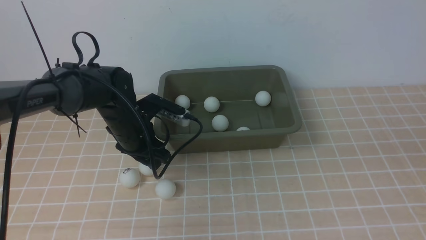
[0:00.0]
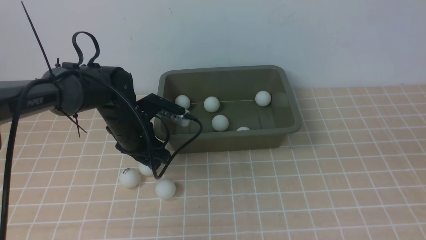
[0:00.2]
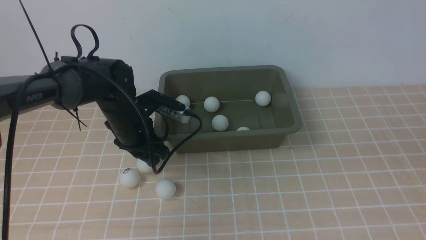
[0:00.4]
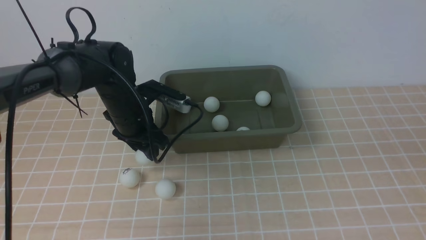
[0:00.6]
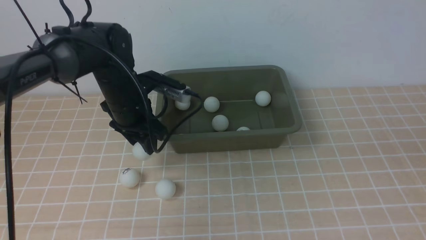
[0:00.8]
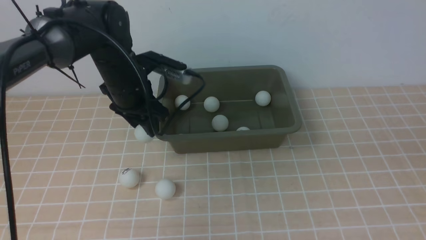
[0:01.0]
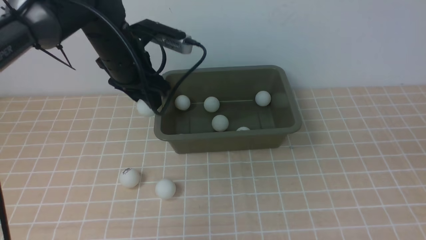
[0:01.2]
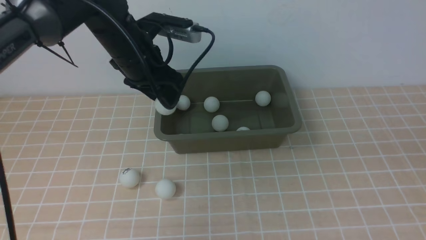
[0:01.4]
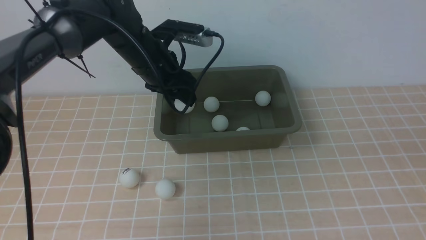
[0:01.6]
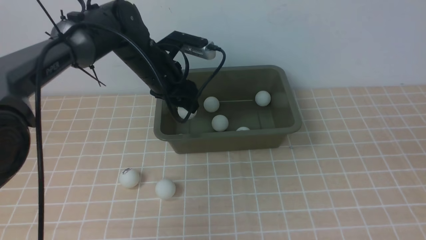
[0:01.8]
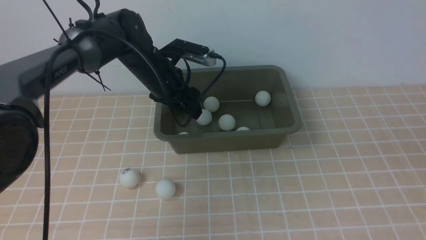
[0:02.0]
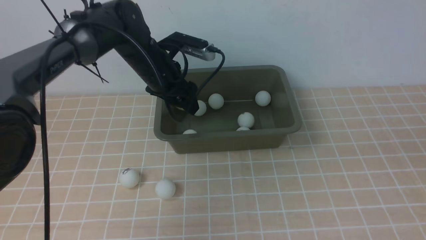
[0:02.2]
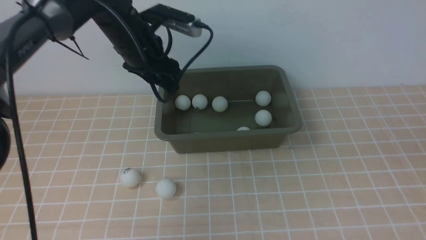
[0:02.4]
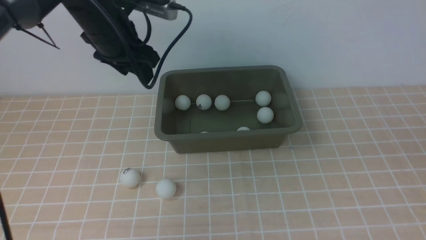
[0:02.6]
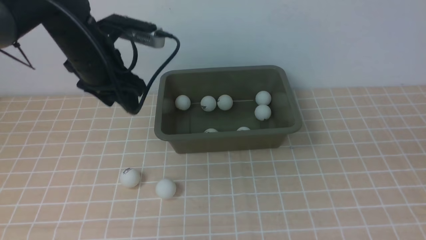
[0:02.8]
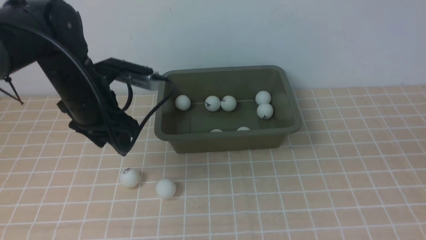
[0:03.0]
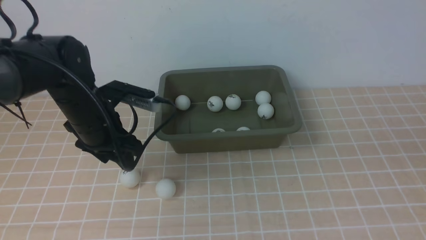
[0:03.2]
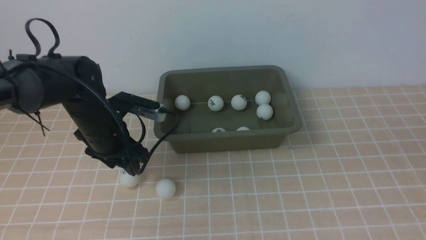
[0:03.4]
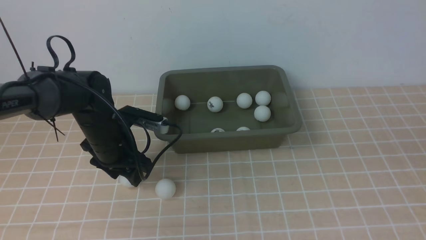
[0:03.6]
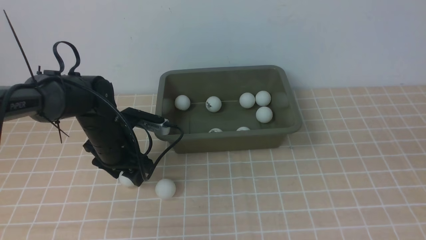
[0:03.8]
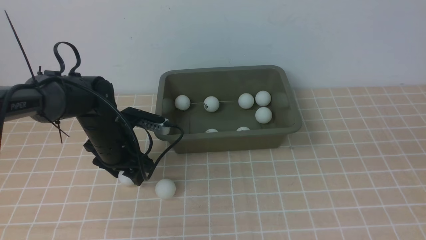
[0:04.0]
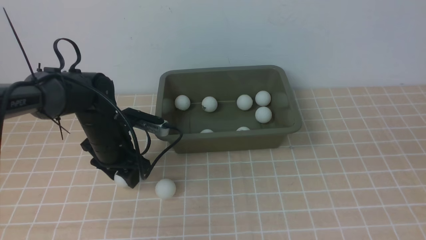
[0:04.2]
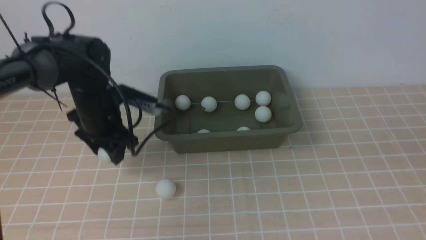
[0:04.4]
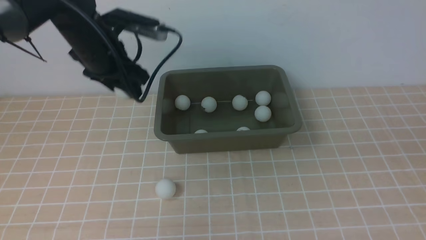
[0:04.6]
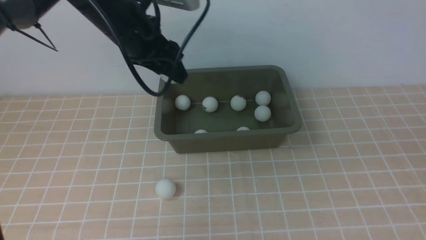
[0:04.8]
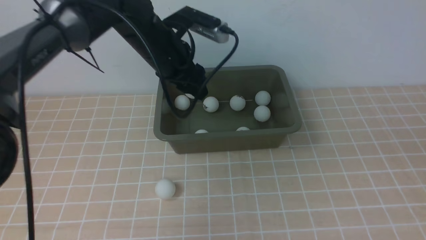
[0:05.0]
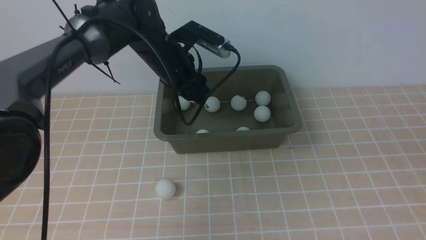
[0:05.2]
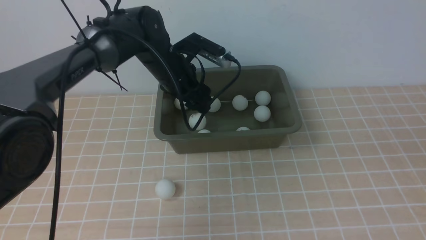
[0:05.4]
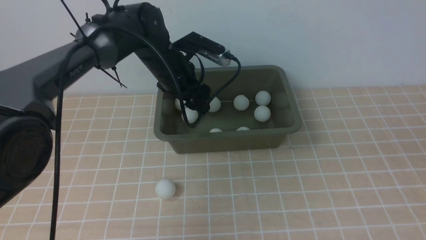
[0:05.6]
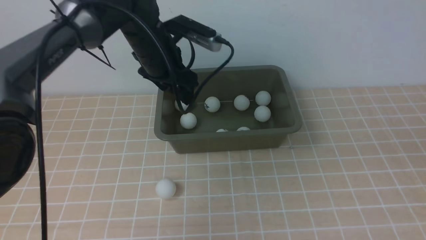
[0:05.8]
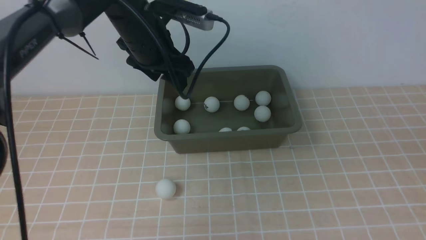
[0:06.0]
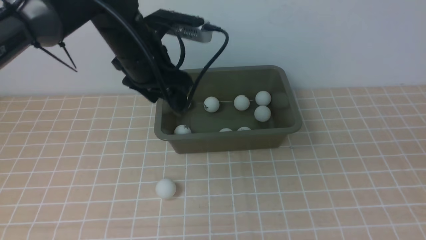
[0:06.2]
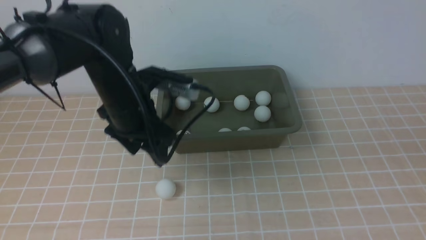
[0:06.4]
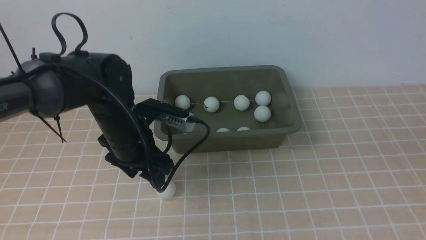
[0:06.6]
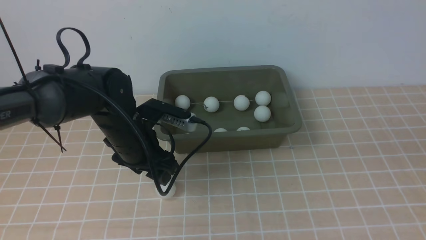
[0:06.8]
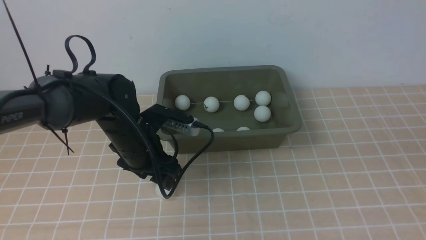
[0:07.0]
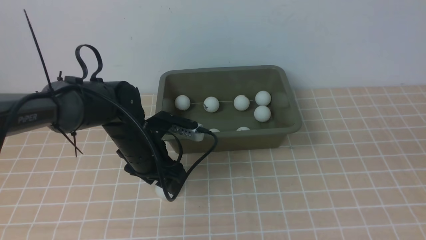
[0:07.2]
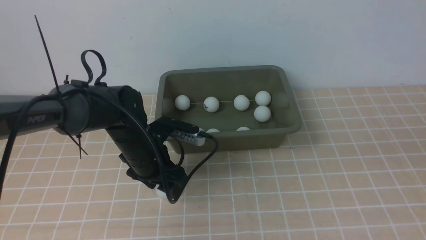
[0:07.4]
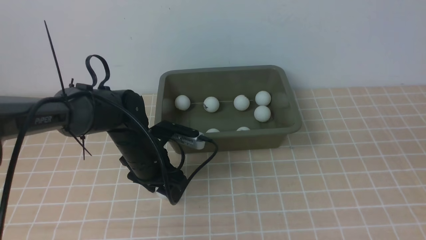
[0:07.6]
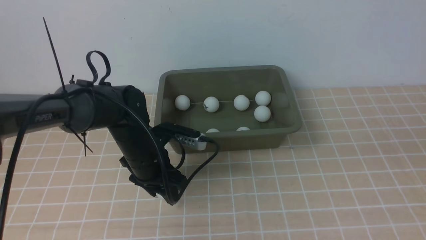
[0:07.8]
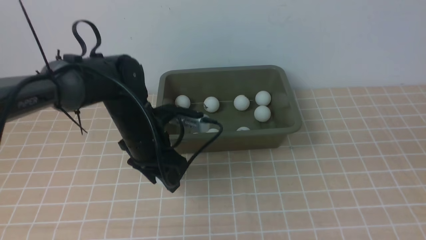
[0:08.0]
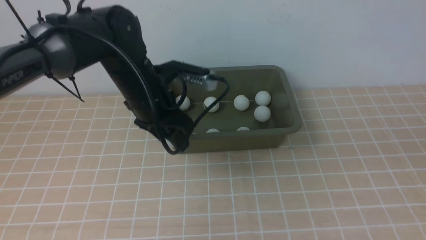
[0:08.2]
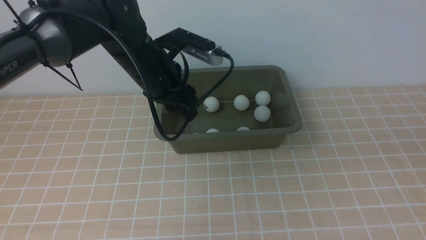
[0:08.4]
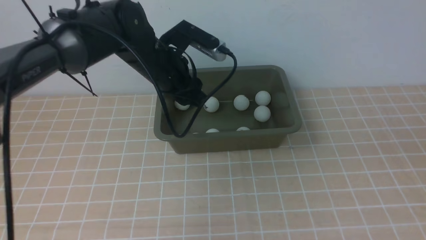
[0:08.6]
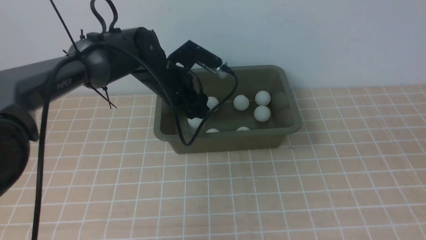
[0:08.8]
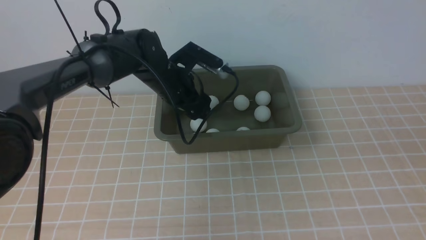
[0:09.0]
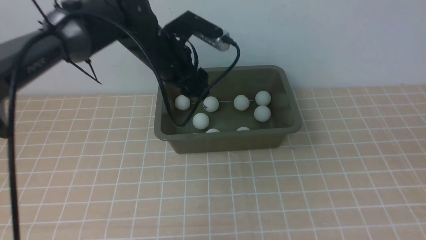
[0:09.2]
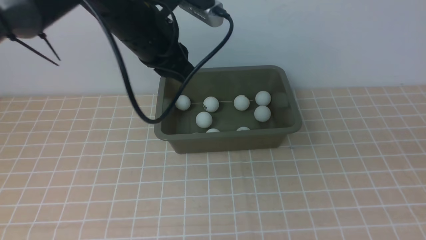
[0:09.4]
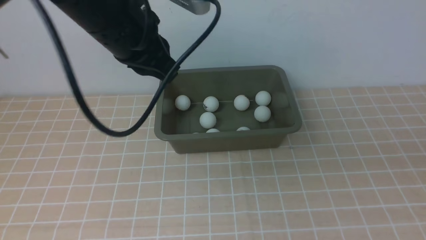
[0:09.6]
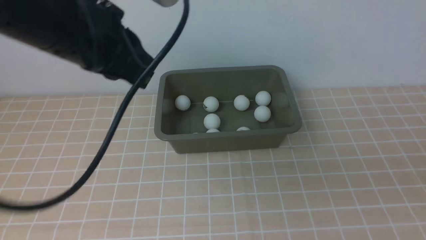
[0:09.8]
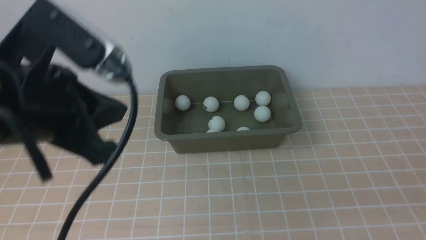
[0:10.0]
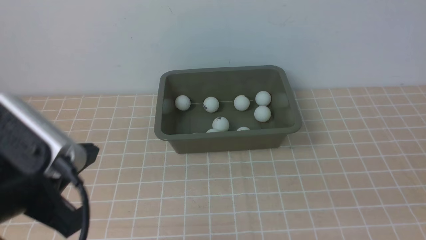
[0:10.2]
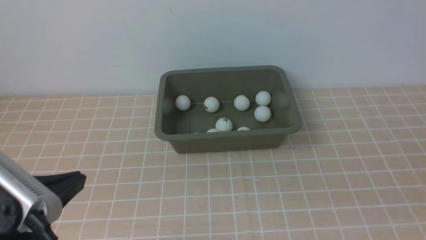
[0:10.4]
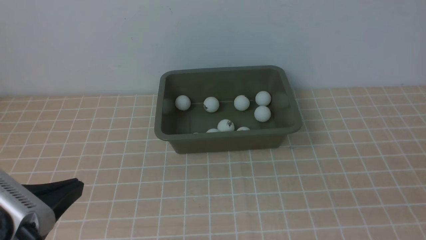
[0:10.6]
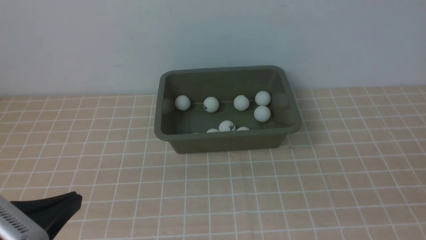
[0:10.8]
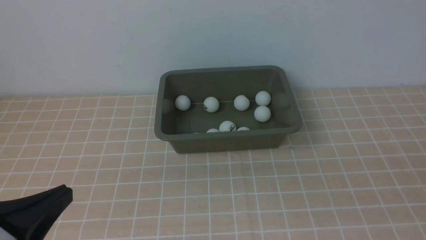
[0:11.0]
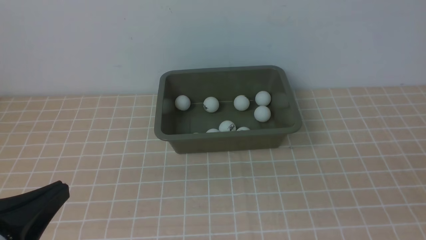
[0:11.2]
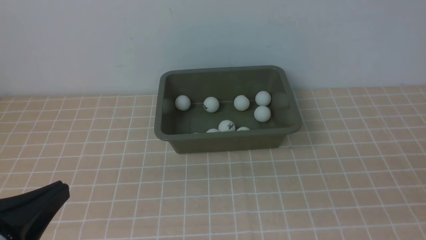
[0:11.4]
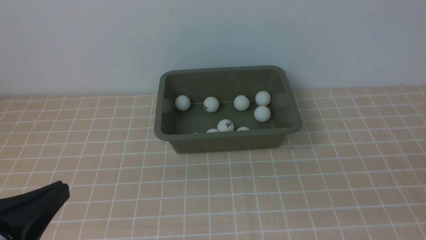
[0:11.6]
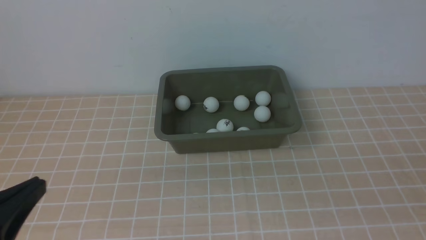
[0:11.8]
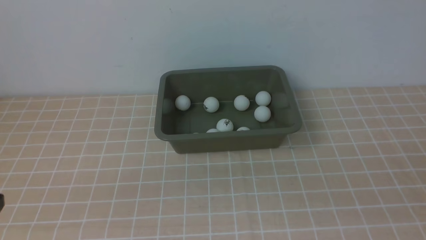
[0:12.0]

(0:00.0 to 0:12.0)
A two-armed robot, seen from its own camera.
Step, 0:00.6 - 0:02.2: use the left arm to put the table tennis ball into the box.
Step, 0:02.4 - 0:04.4: use the left arm to clamp the table tennis ball closest to it.
Step, 0:04.6 - 0:05.8: use the left arm to put the table tennis ball into the box.
Step, 0:06.0 - 0:08.0: use the left arm to clamp the table tennis ball closest to it.
Step, 0:08.2 - 0:09.2: use the left arm to put the table tennis ball into the box.
0:00.0 - 0:01.6: The left gripper moves upward, some 10 cm.
0:01.6 - 0:03.0: The left gripper heads to the left and backward, covering about 10 cm.
0:03.0 - 0:04.4: The left gripper goes approximately 10 cm downward.
0:04.4 - 0:06.0: The left gripper moves up and down over approximately 10 cm, changing direction 2 times.
0:06.0 - 0:07.6: The left gripper is displaced downward and backward by about 20 cm.
0:07.6 - 0:09.0: The left gripper shifts about 15 cm forward and upward.
0:09.0 - 0:10.4: The right gripper shifts approximately 10 cm downward. Meanwhile the left gripper is displaced backward by roughly 30 cm, and closes its fingers.
0:10.4 - 0:12.0: The left gripper travels backward by some 5 cm.

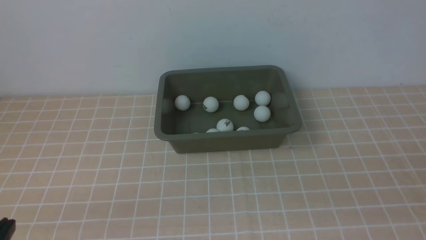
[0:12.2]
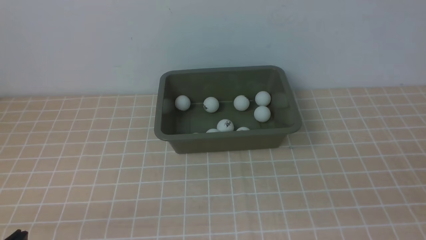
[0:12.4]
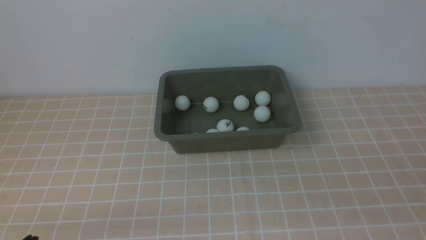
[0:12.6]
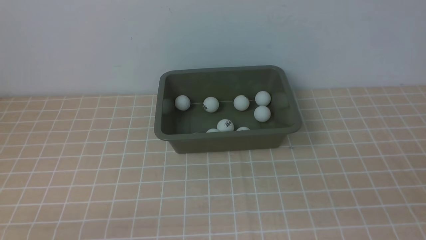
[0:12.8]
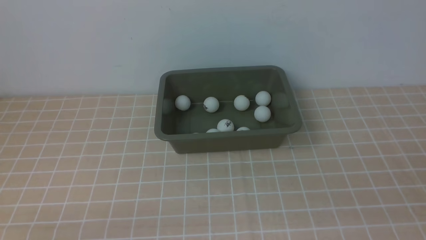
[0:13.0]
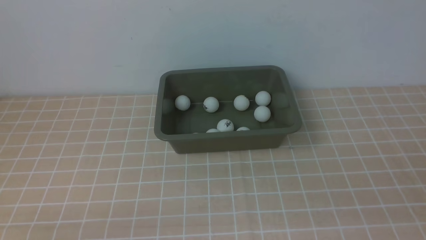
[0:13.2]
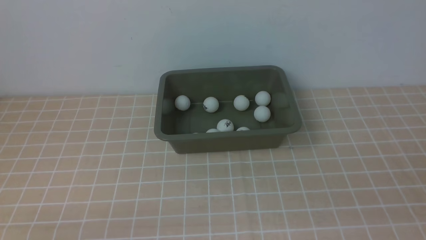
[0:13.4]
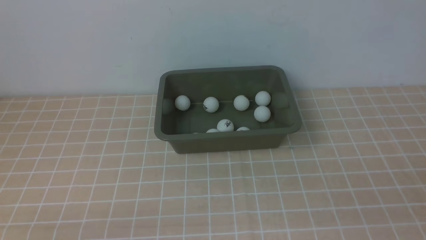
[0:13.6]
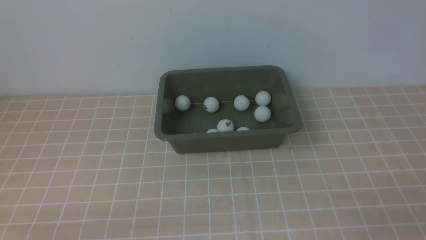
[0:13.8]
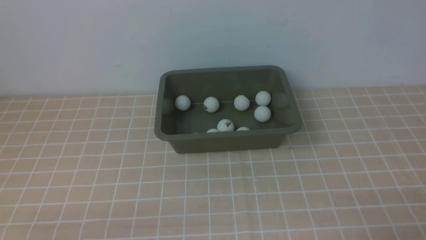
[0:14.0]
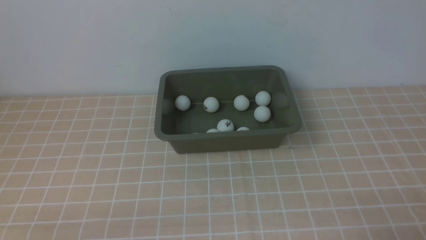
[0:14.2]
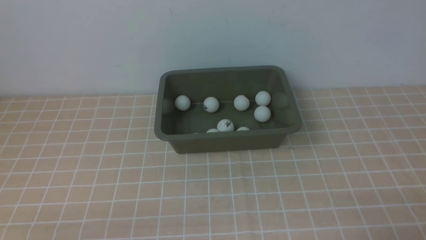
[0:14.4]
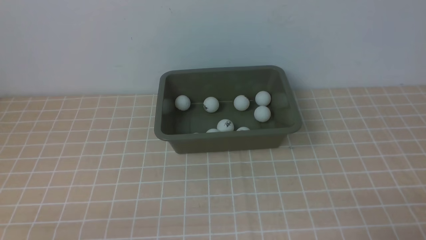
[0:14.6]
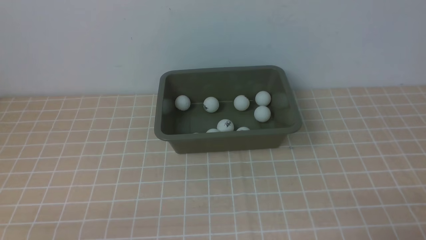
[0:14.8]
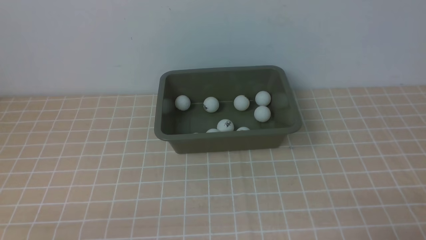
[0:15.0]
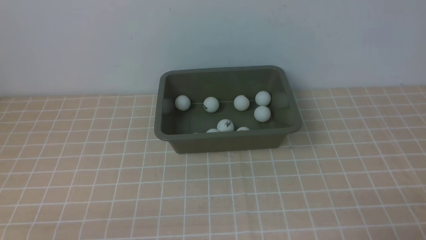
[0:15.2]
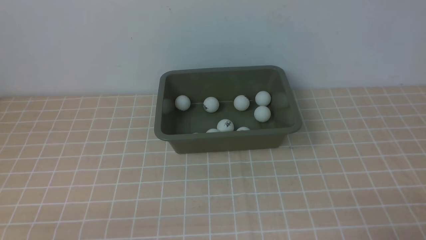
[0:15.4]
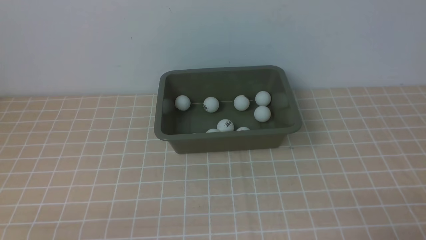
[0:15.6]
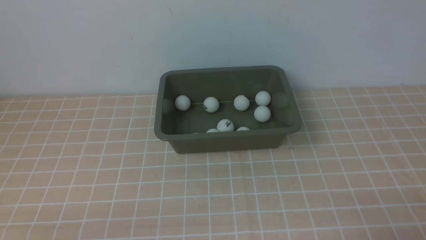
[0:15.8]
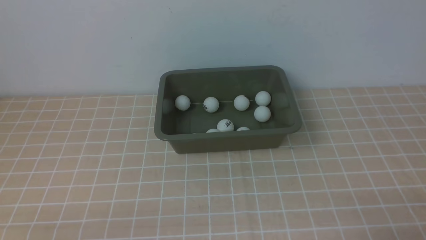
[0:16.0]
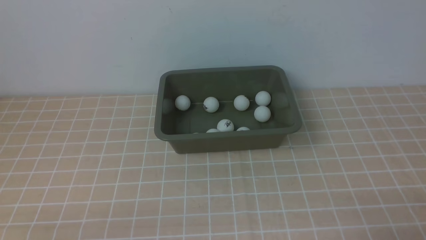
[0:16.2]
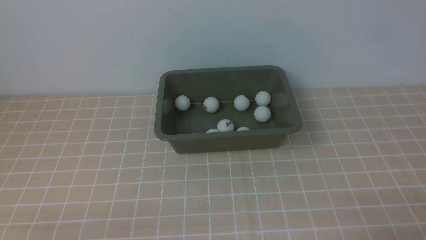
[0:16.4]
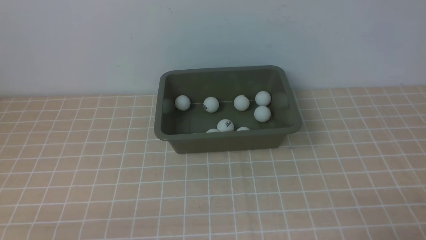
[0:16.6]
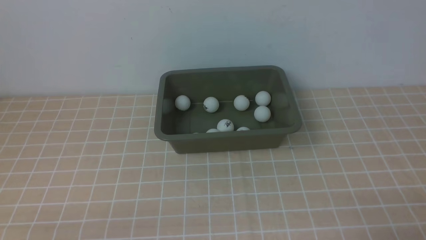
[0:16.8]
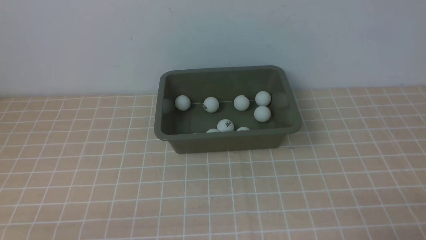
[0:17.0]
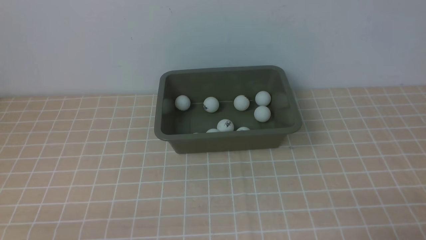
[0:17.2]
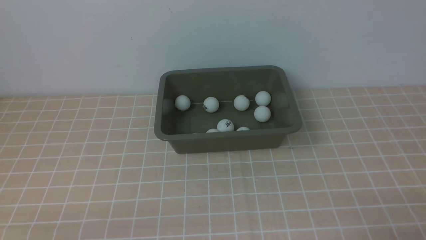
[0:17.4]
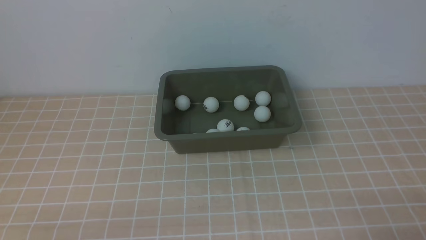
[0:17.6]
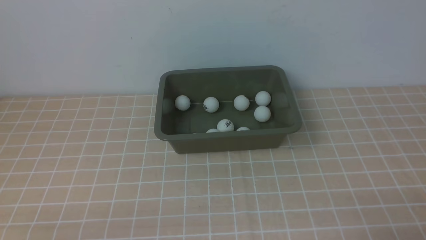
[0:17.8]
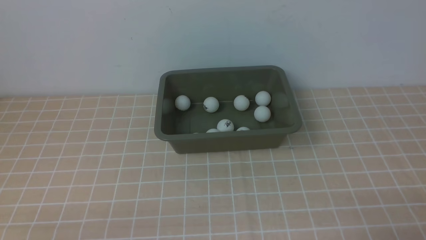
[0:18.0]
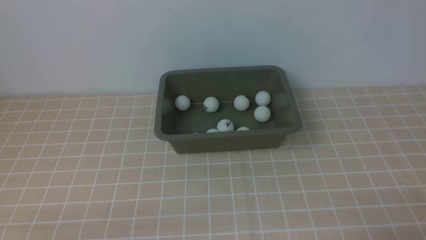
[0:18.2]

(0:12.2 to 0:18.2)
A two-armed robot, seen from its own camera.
0:15.2 - 0:18.2: Both grippers stay about where they are.
